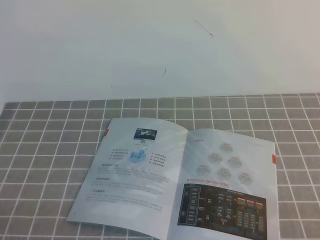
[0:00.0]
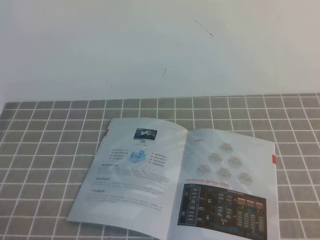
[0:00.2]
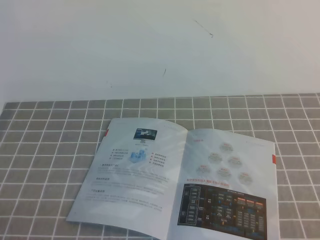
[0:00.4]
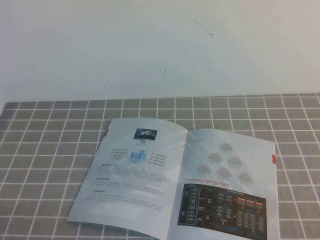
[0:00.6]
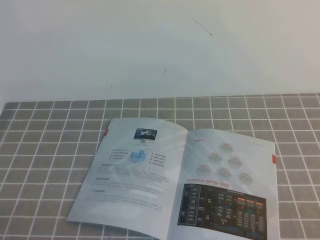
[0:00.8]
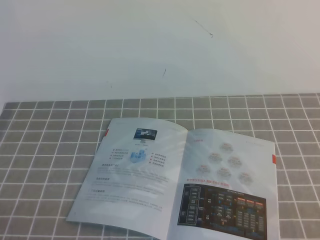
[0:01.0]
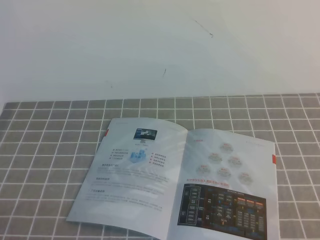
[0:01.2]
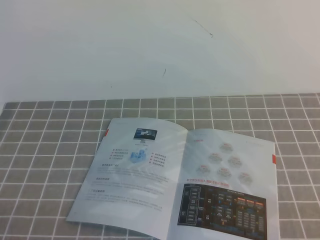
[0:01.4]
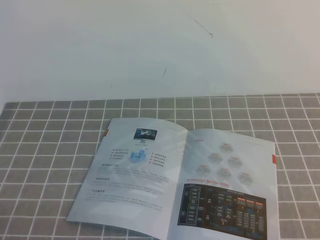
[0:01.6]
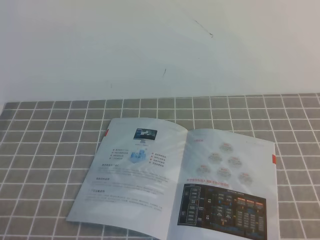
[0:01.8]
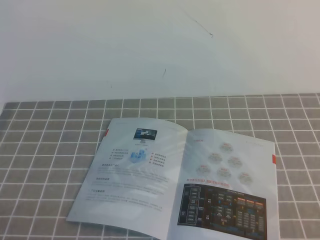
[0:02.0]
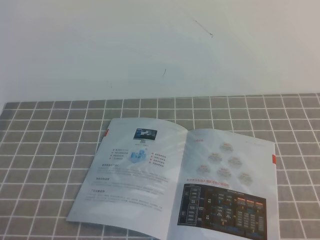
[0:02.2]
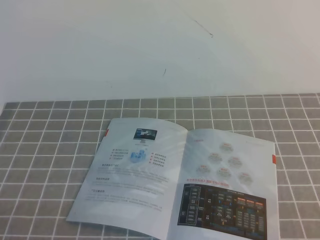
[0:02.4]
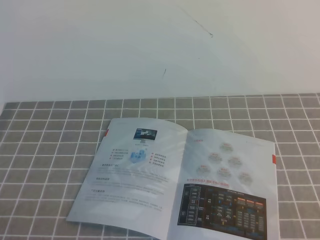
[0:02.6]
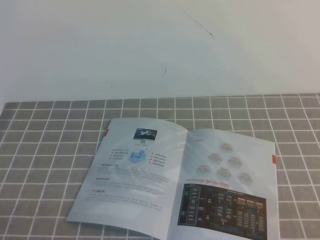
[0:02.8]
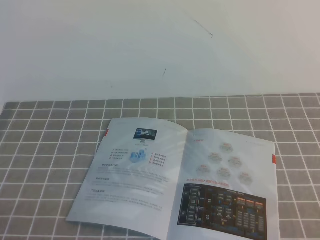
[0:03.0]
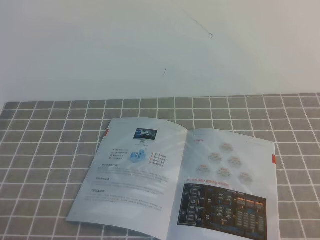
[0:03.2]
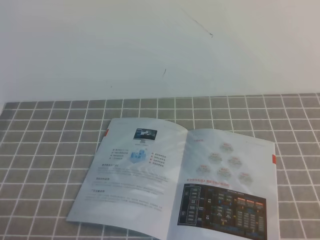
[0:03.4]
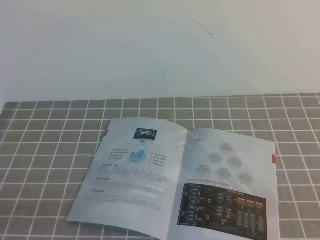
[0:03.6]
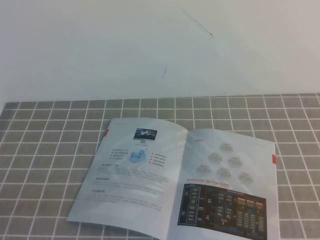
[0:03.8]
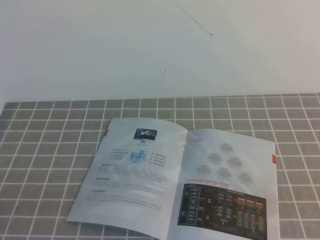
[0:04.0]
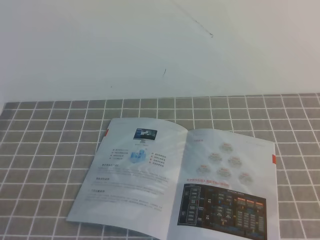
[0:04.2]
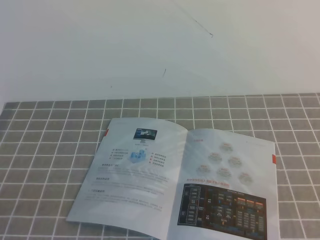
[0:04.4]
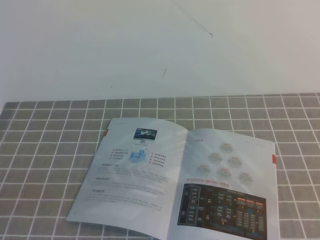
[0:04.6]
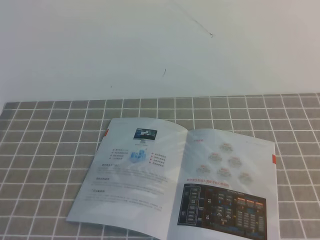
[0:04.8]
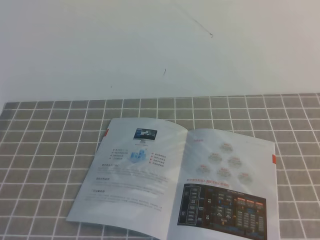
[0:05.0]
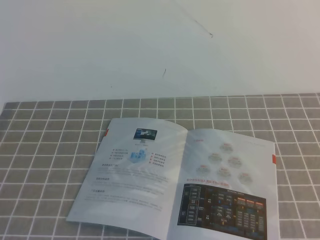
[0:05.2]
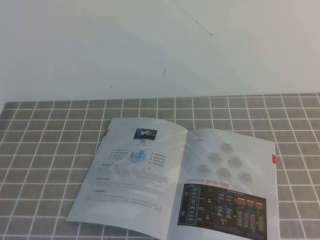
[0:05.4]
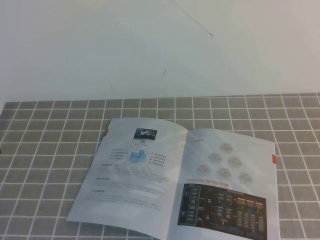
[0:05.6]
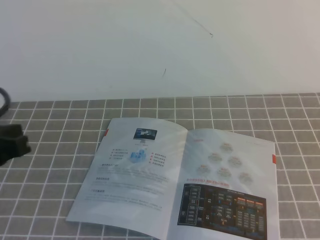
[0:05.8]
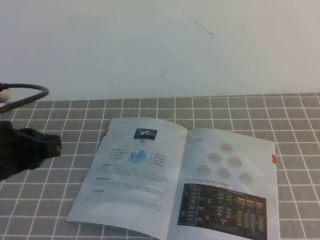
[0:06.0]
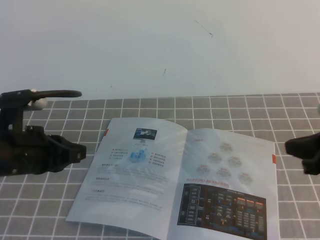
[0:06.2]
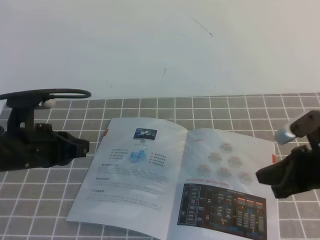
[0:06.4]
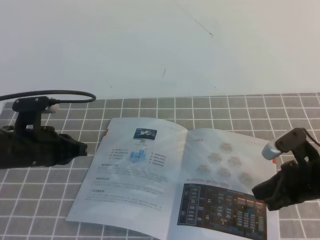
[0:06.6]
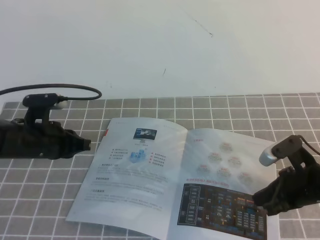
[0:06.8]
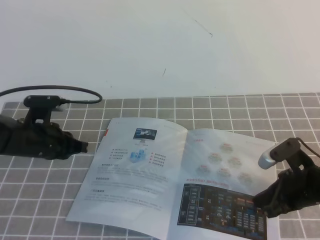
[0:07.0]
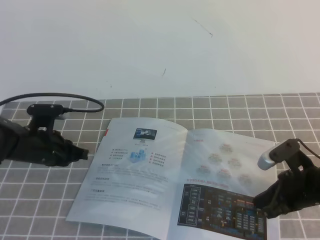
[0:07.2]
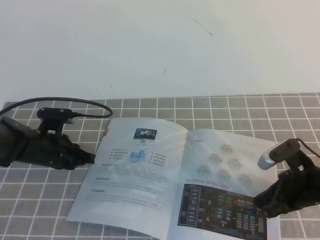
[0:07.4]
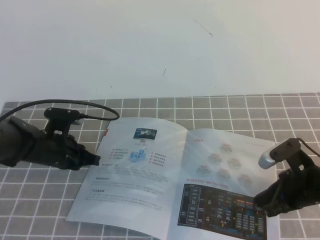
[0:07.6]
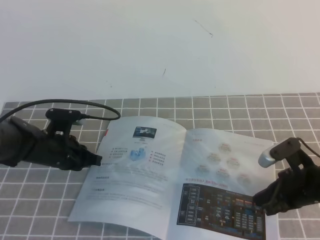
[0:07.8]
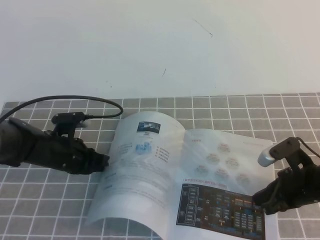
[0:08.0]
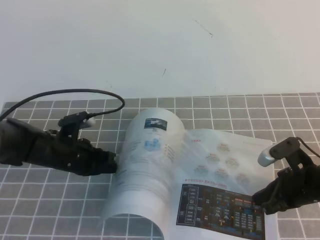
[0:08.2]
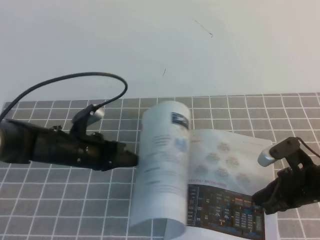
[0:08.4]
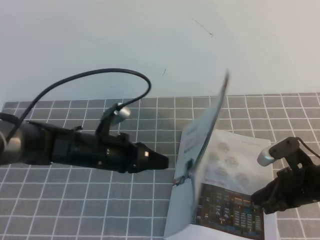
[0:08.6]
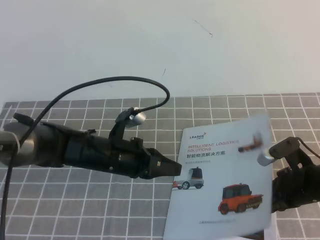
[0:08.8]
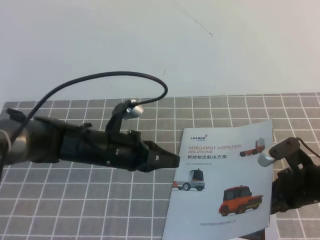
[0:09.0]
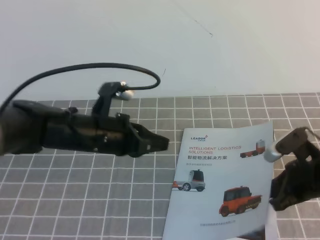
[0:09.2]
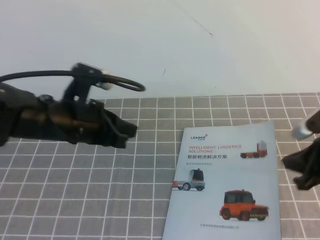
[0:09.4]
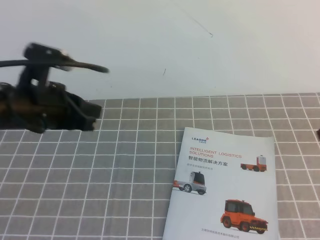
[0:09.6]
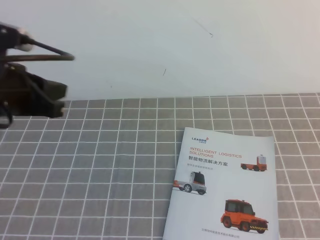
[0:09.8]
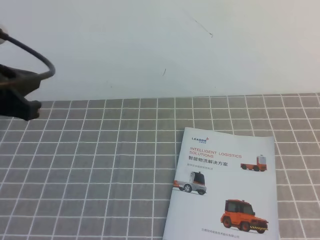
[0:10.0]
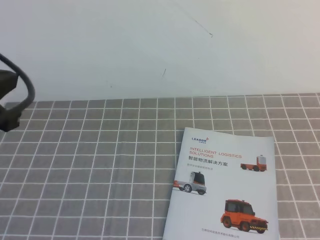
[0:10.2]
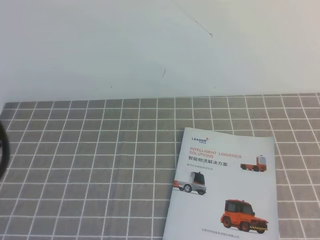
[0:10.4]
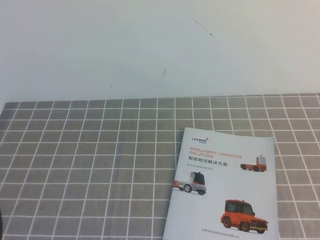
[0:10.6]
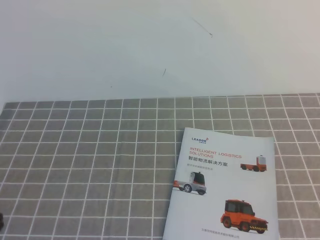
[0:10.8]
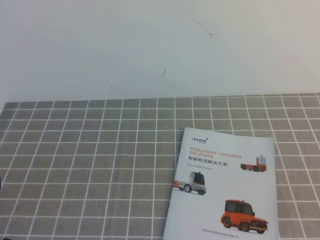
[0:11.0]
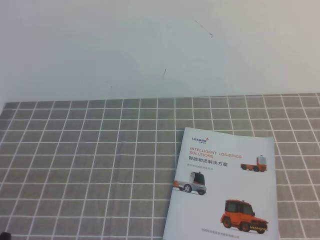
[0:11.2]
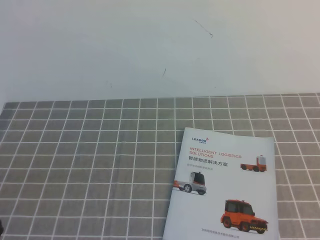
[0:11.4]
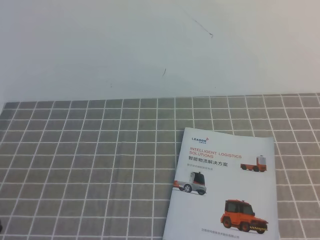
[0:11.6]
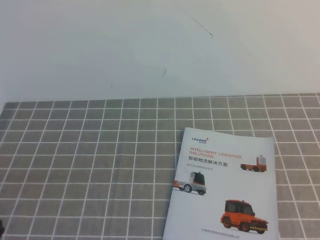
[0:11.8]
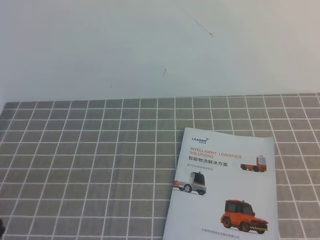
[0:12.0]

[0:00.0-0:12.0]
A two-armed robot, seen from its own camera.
Task of the whole recording: on the grey tablecloth, hold the book with one hand and close it with the other.
0:00.0 to 0:03.0: Both grippers stay put.
0:04.4 to 0:06.0: The left gripper goes approximately 20 cm forward.
0:06.0 to 0:07.6: The left gripper moves downward and forward, approximately 25 cm. The right gripper moves downward, some 15 cm.
0:07.6 to 0:09.0: The left gripper moves to the right and upward, some 10 cm.
0:09.0 to 0:10.4: The right gripper heads upward and backward, covering about 30 cm; the left gripper goes about 30 cm upward, backward and to the left.

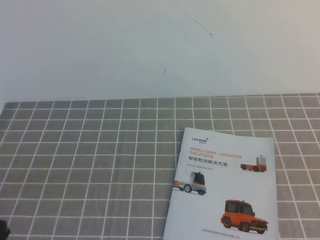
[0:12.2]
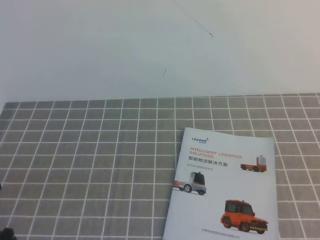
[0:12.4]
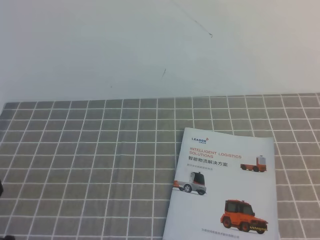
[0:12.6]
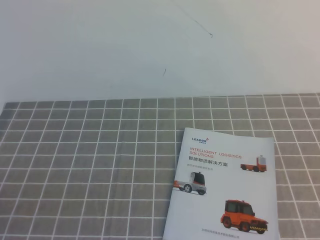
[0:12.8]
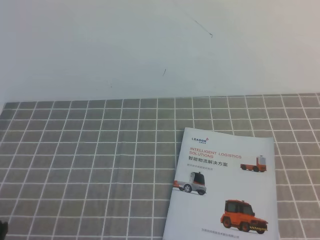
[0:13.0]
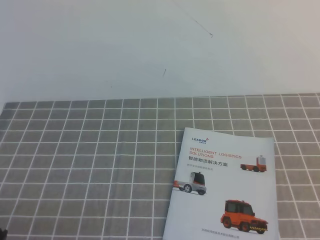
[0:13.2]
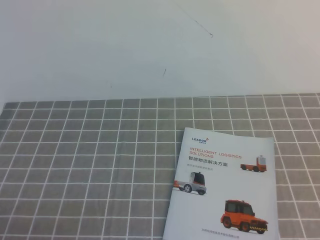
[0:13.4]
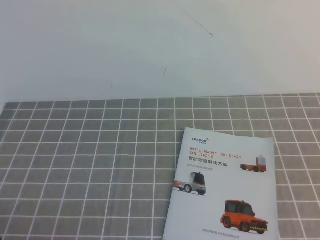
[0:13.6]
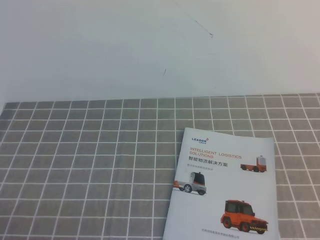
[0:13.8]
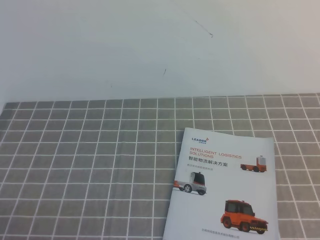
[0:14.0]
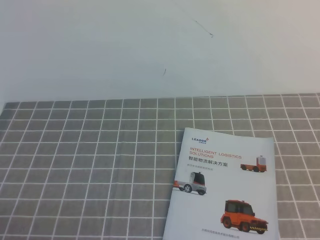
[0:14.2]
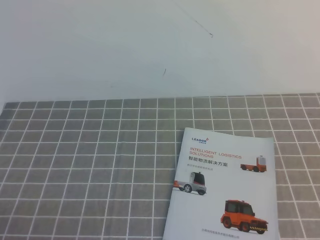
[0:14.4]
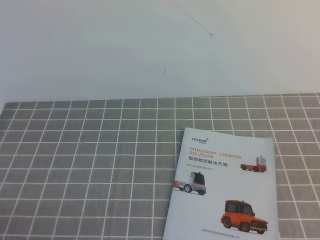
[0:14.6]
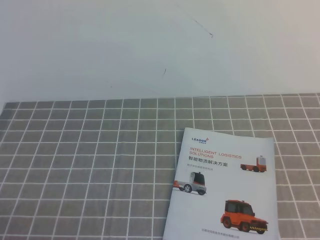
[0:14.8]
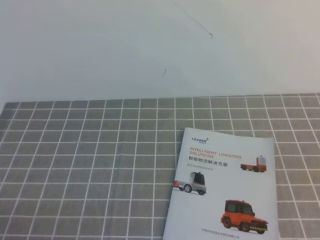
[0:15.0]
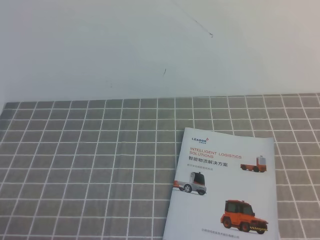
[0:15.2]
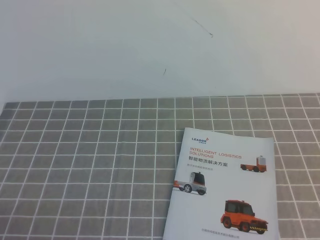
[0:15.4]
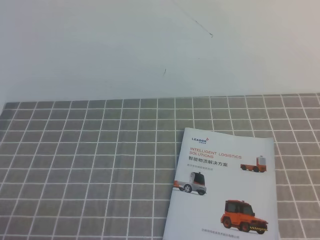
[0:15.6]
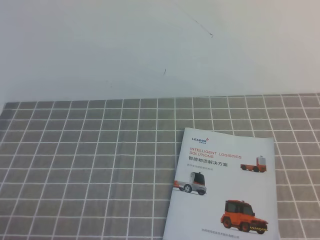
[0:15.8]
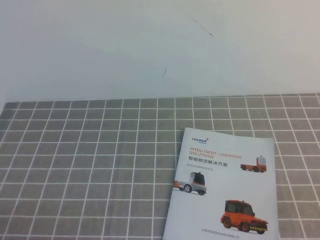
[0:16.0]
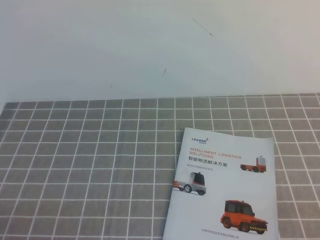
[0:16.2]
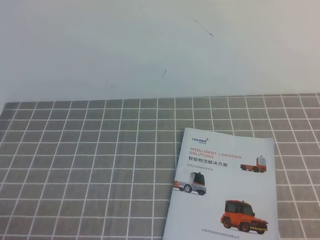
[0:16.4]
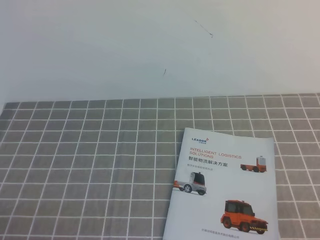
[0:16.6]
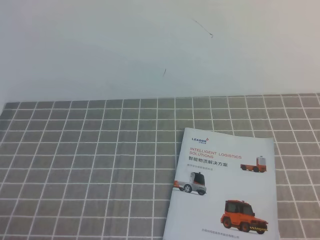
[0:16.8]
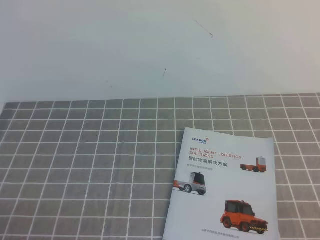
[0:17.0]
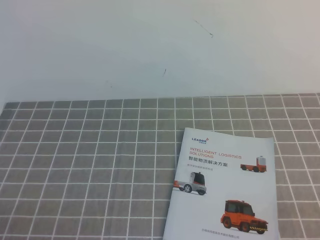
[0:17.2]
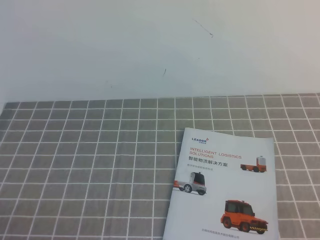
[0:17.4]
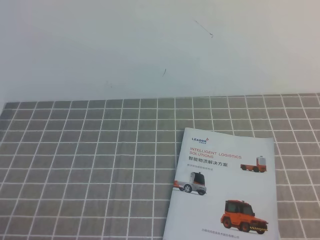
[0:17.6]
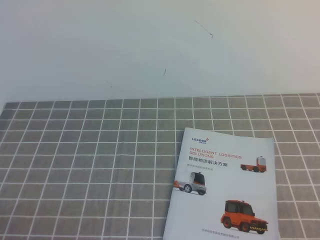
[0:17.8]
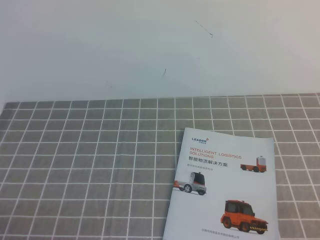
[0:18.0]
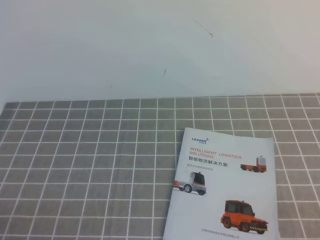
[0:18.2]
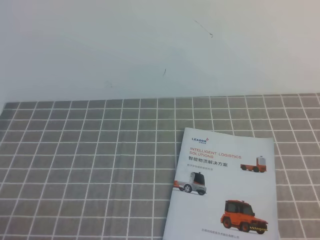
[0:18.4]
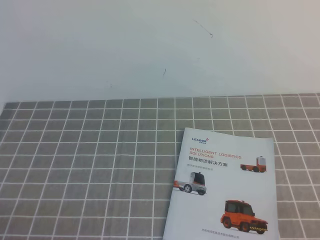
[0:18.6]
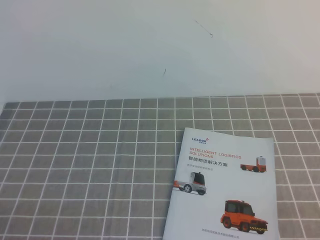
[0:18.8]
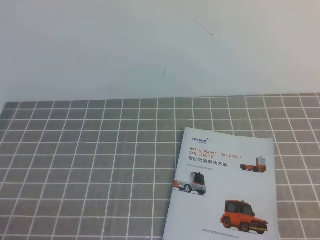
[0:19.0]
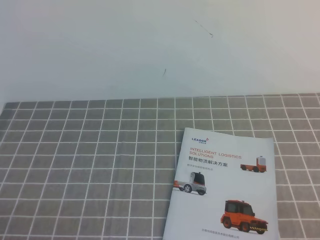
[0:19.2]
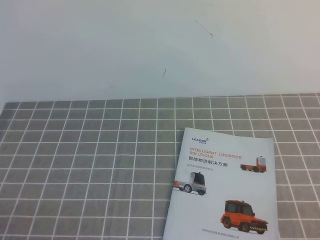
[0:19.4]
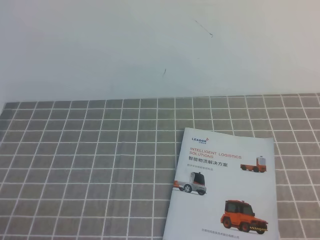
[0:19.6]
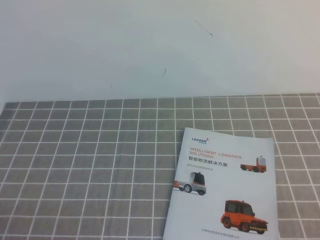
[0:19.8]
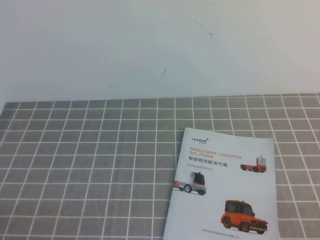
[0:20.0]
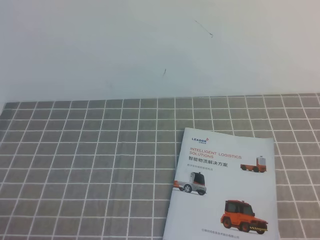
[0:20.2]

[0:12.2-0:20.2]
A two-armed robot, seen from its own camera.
Task of the whole recording: on the grey tablecloth, hold the book with one hand and close it with the other.
0:13.8 to 0:15.4: Neither gripper changes place.
0:17.0 to 0:18.6: The two grippers keep their place.
0:18.6 to 0:20.2: Both grippers stay about where they are.

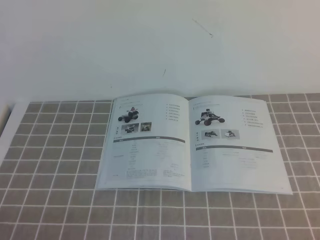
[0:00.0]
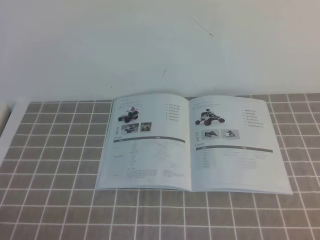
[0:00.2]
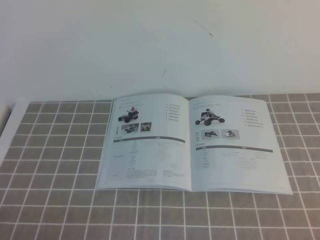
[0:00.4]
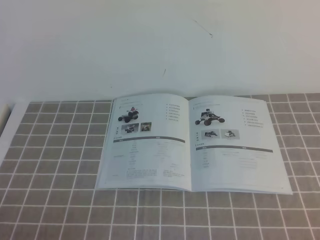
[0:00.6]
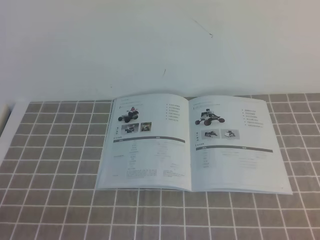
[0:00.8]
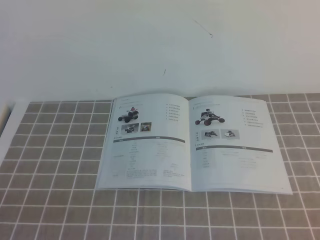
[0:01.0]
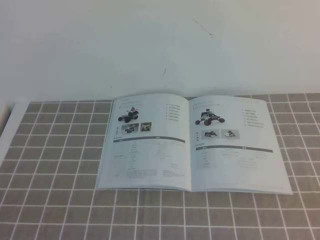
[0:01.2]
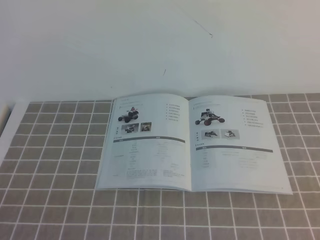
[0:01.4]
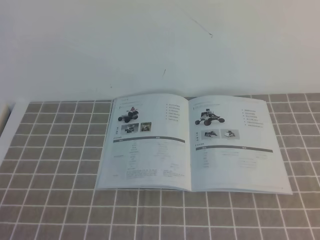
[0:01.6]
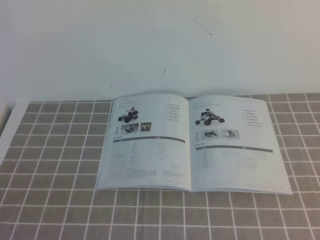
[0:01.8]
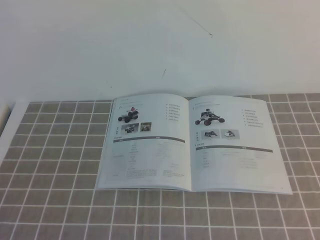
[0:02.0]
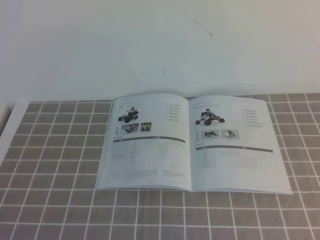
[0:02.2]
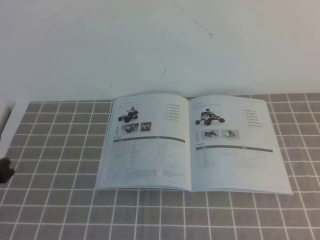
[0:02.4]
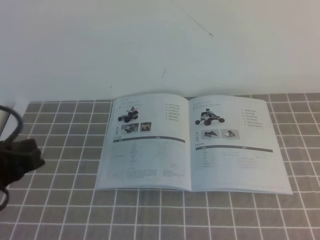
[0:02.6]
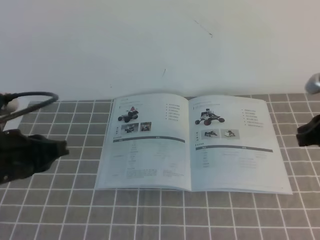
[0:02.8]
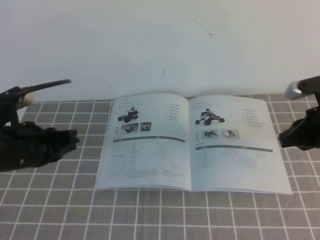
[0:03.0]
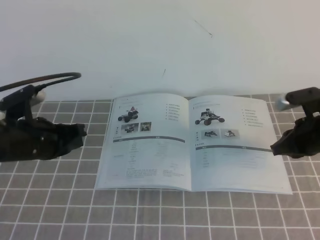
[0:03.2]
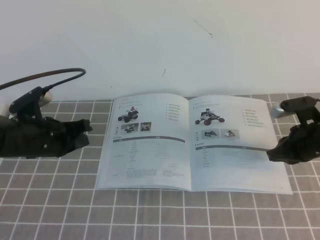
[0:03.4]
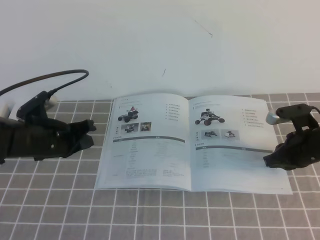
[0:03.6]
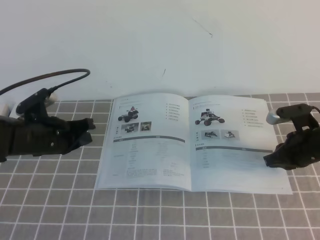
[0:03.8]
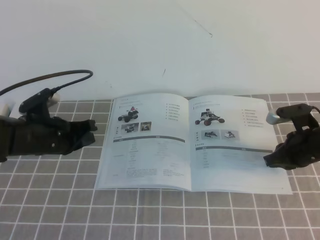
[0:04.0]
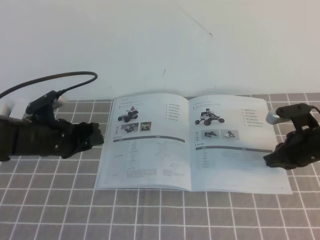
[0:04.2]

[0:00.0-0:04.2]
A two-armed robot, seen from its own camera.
Task of the whole recording: on the grey tablecloth, hold the book with one hand and close it with the other.
0:01.4 to 0:02.8: Both grippers travel together forward, some 20 cm.
0:02.8 to 0:04.2: The left gripper moves forward and downward, some 15 cm, and opens. Meanwhile the right gripper moves downward and forward, approximately 15 cm.
